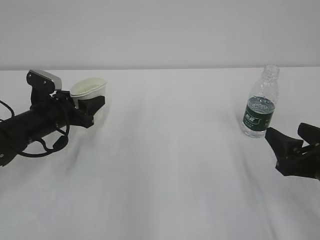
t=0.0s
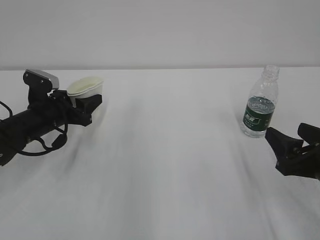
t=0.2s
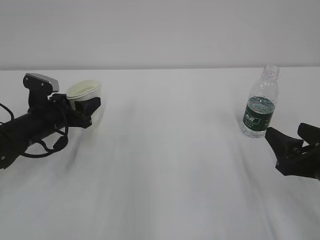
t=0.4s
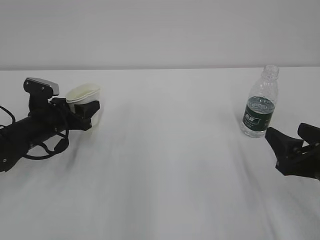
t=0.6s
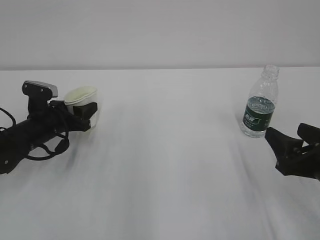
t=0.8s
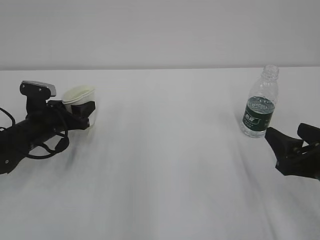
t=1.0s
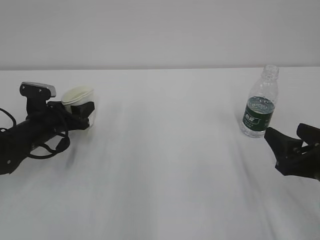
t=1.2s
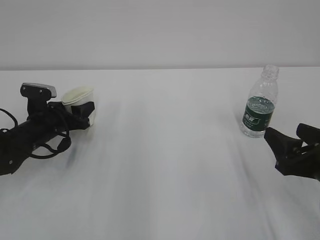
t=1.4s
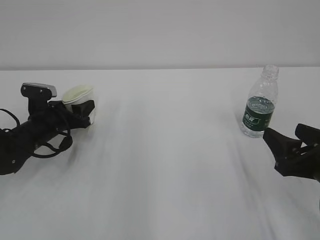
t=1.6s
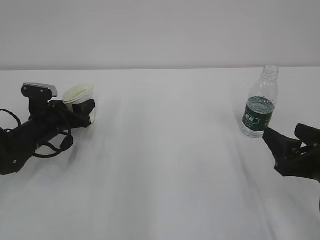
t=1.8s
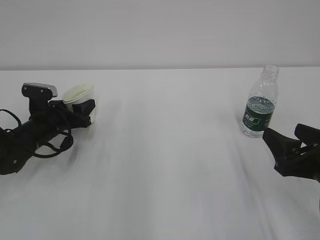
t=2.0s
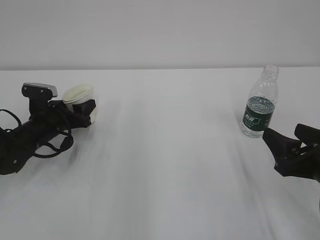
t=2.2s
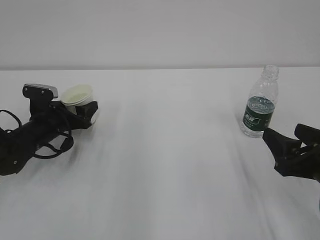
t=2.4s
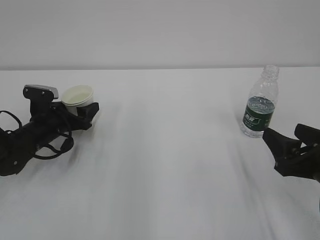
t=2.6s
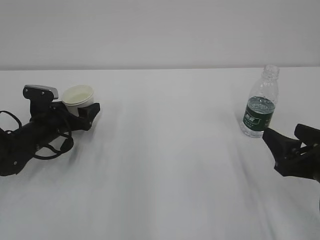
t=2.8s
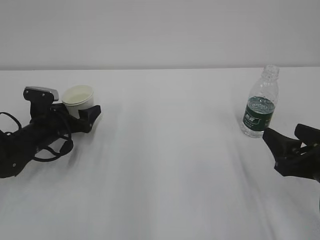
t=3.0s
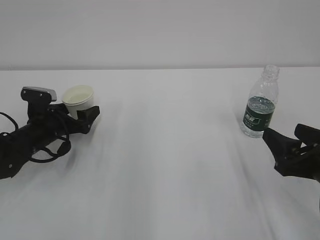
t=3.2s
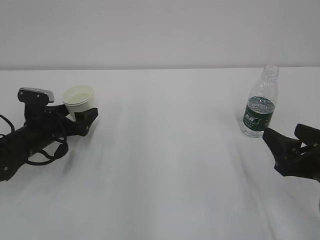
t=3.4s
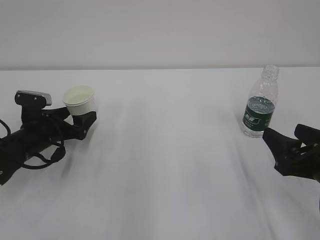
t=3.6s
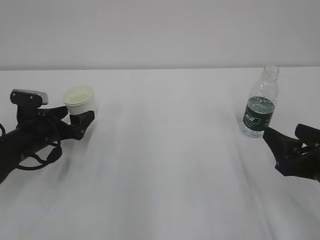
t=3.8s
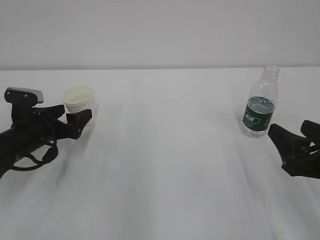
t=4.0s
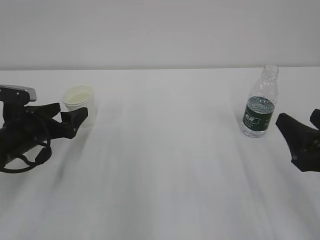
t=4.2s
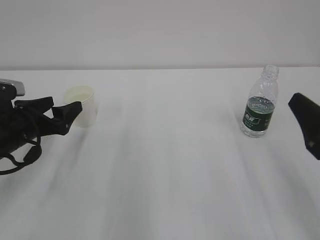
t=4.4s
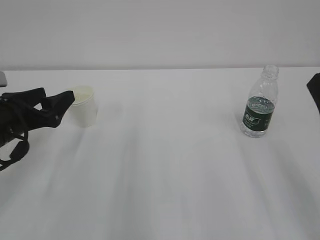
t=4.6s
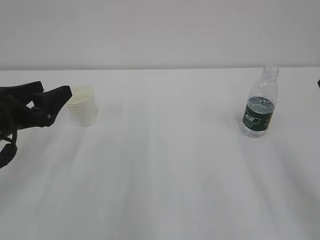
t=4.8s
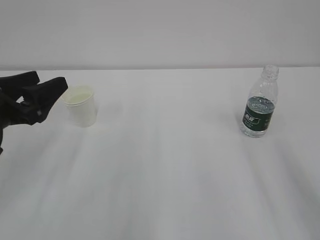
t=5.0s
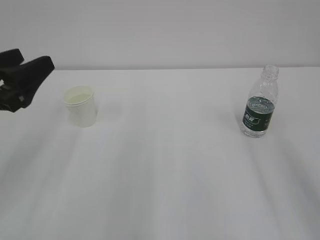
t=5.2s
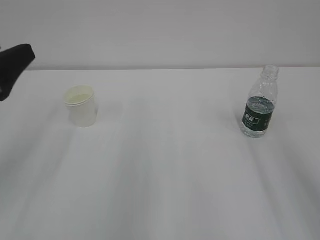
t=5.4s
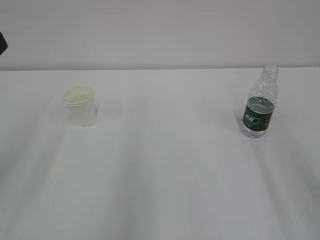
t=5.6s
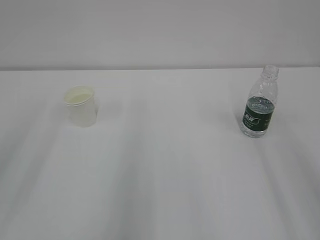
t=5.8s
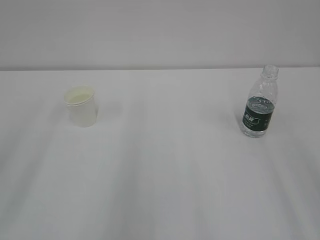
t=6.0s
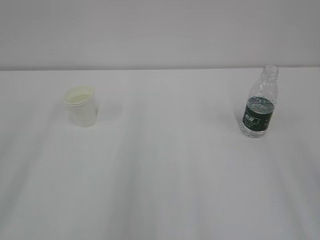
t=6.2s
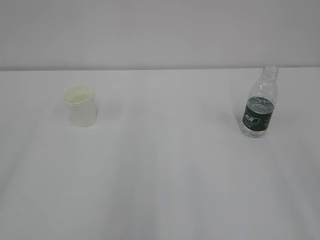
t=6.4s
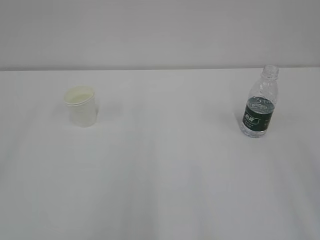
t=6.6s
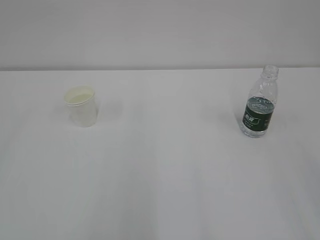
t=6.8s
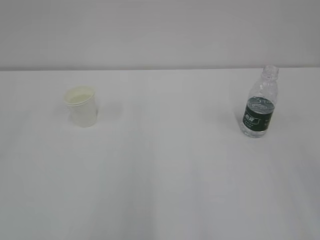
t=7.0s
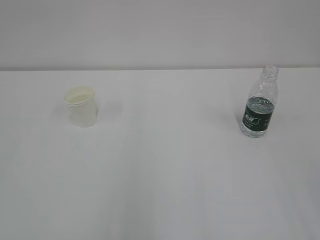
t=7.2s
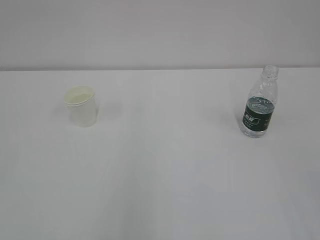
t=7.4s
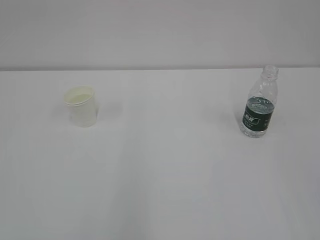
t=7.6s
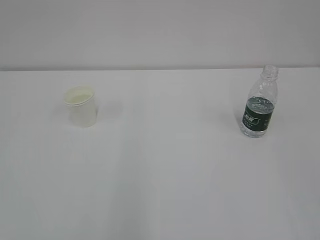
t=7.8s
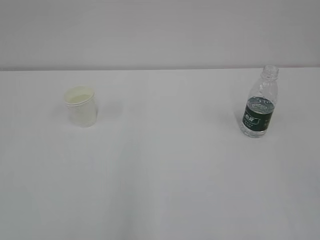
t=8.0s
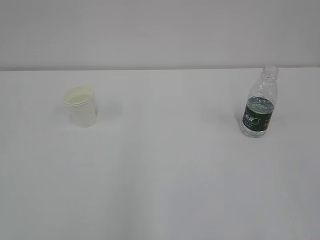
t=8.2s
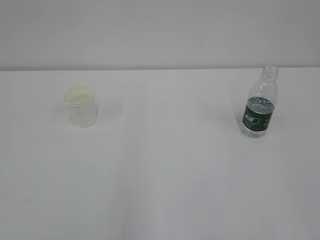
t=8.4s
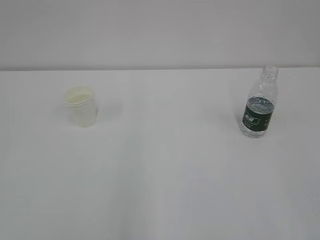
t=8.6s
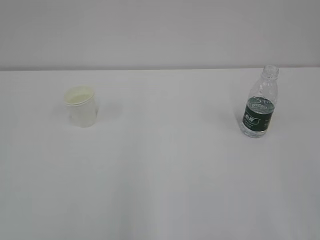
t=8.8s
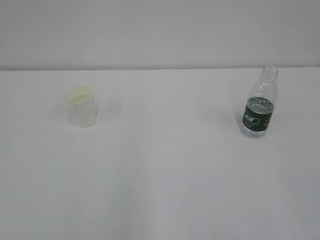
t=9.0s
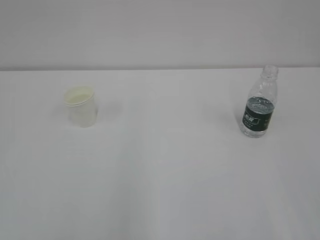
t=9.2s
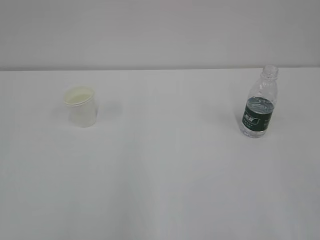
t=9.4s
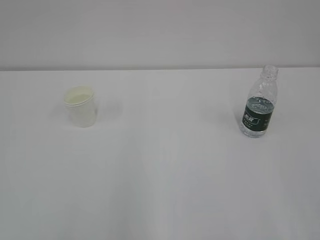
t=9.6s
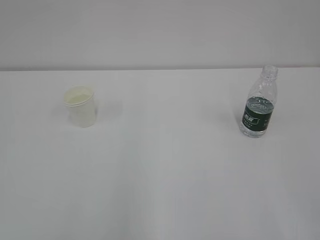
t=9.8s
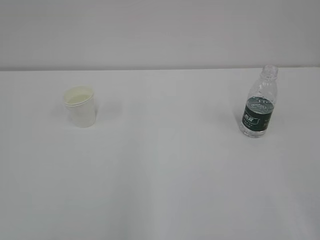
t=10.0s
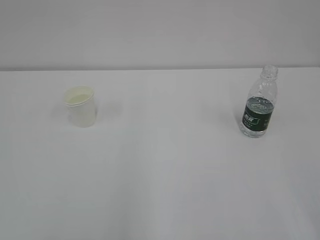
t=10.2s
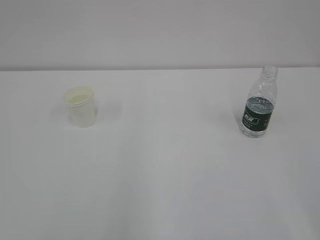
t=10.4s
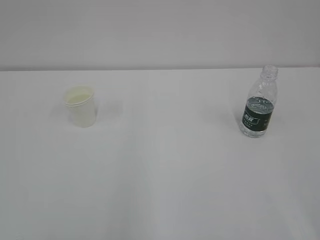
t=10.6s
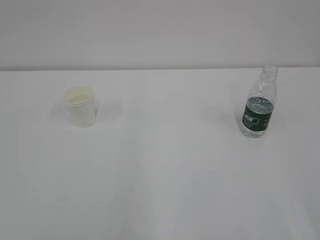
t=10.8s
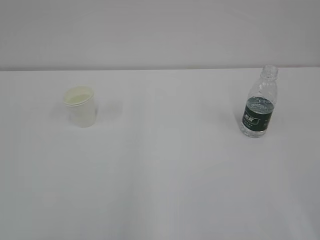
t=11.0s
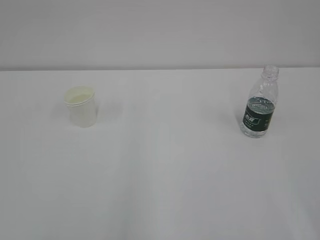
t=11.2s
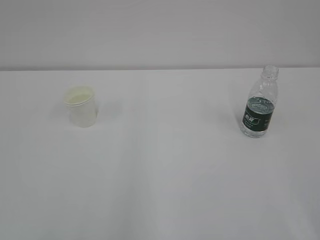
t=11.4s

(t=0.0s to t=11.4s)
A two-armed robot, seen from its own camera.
t=0.0s - t=1.4s: The grippers stay close to where they were, moving slightly.
t=1.4s - t=2.8s: The left gripper opens up.
t=2.8s - t=4.2s: The left gripper moves backward, roughly 5 cm.
t=4.2s - t=5.6s: The grippers both shift upward and backward by about 20 cm.
